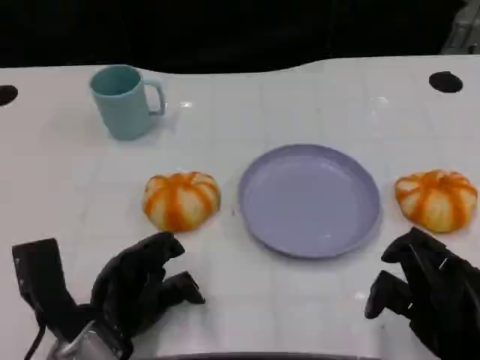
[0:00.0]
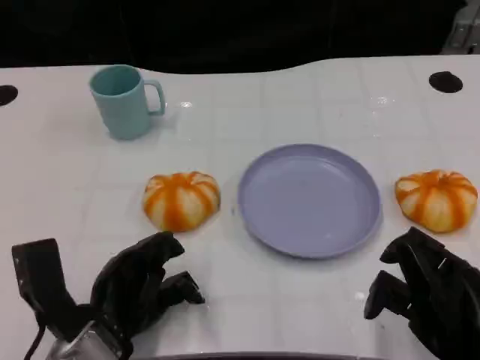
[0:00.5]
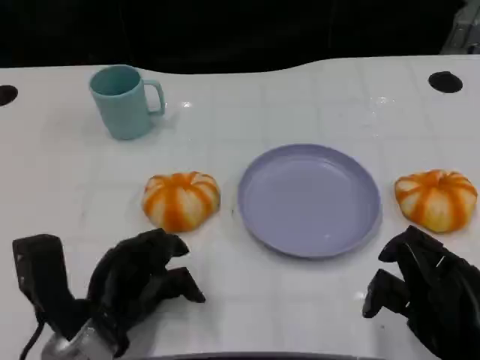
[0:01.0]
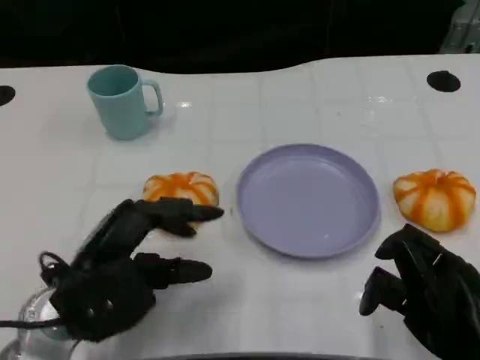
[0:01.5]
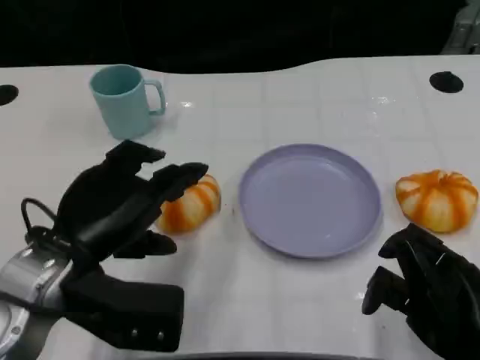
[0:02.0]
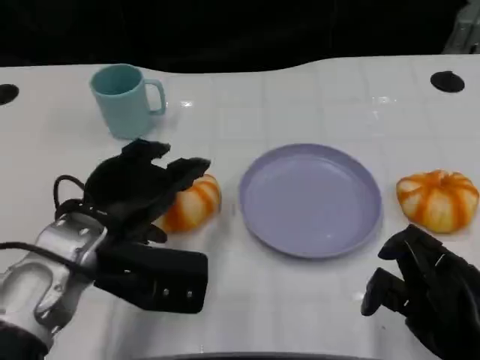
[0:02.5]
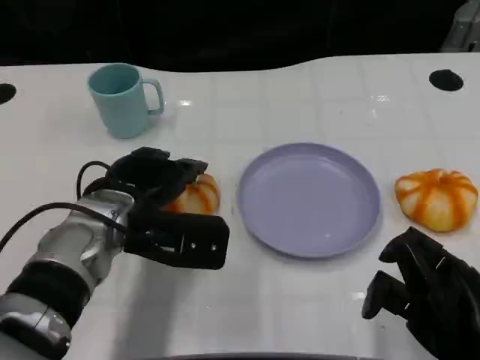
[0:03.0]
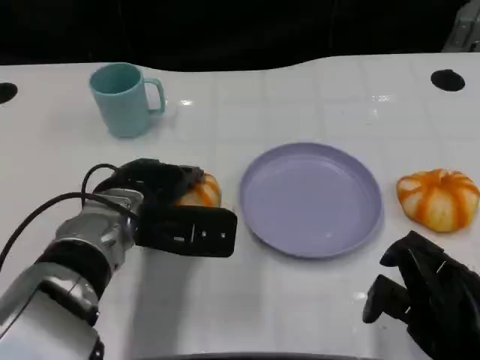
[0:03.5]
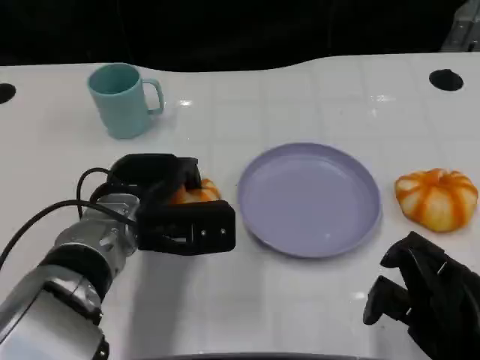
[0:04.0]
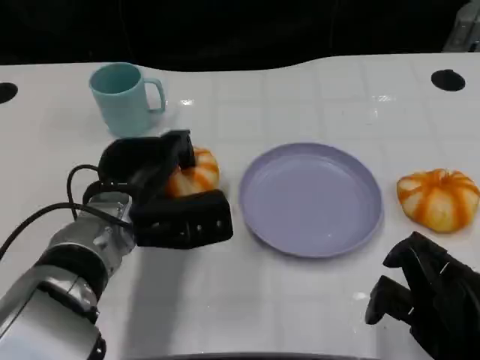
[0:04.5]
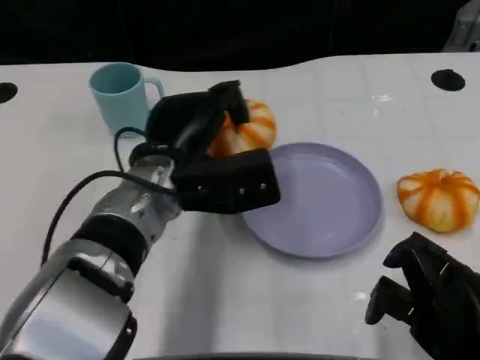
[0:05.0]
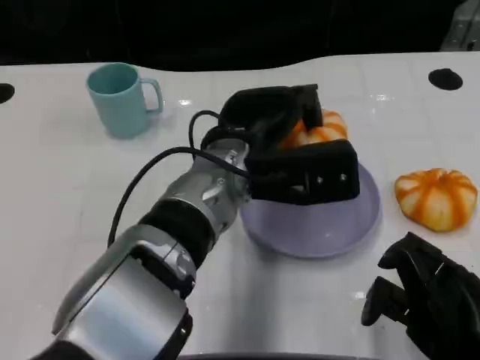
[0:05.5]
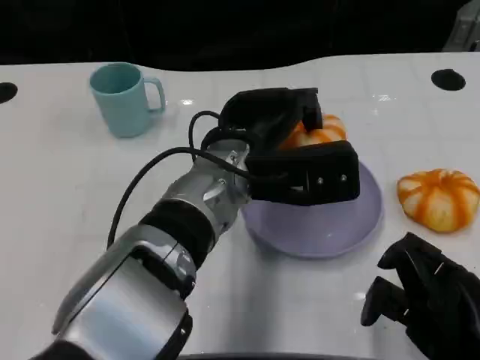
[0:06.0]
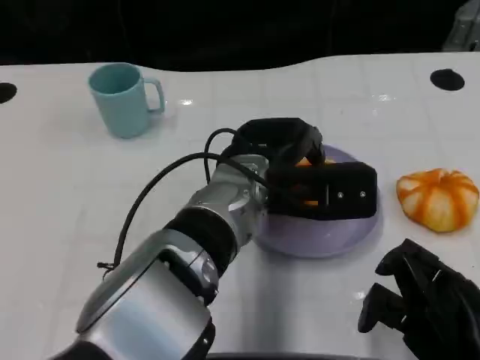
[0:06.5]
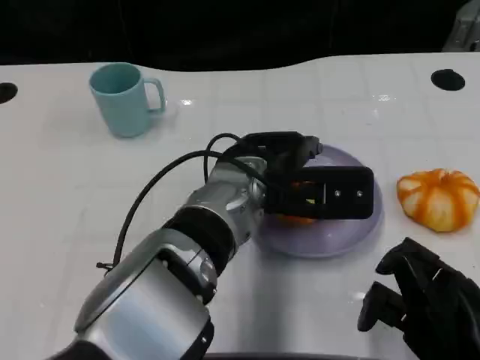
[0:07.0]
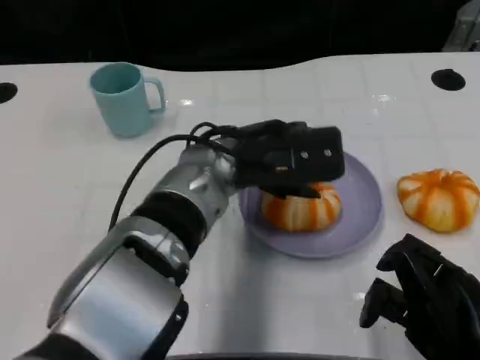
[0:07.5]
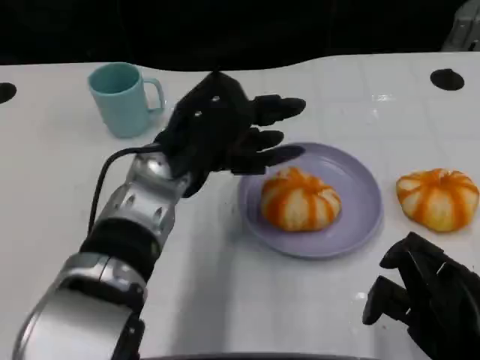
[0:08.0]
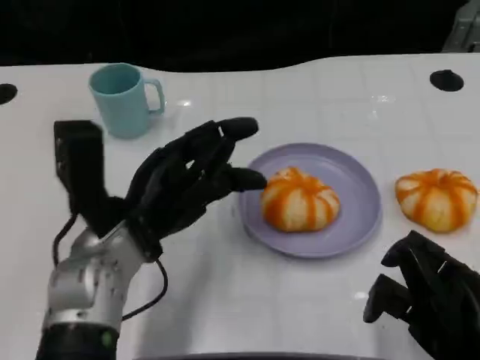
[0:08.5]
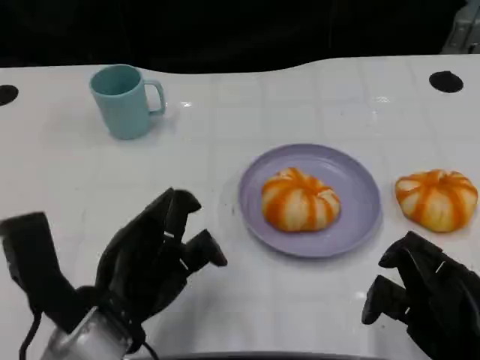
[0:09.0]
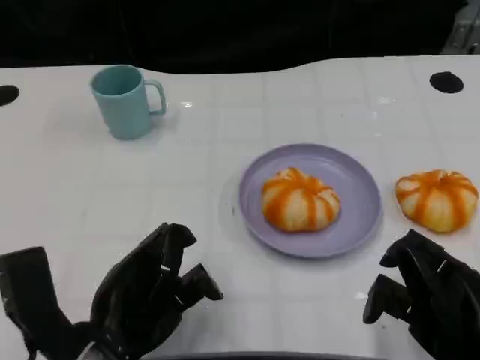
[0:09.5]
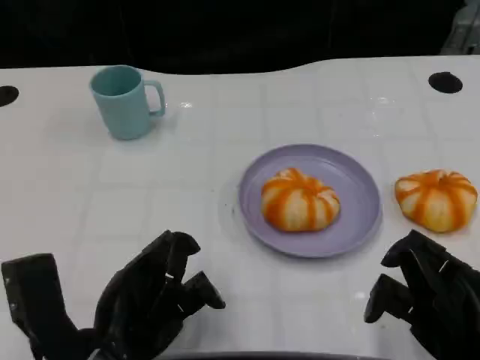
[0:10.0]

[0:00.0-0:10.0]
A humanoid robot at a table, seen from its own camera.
Task of the whole recording: Grasp the bread from the table and place it into the plate.
0.0 to 2.0 s: The left hand travels upward by some 10 cm.
2.0 to 4.0 s: The left hand moves forward and to the right, about 10 cm.
4.0 to 6.0 s: The left hand goes about 15 cm to the right and upward.
6.0 to 8.0 s: The left hand shifts roughly 5 cm to the left.
8.0 to 10.0 s: The left hand heads backward and to the left, covering about 15 cm.

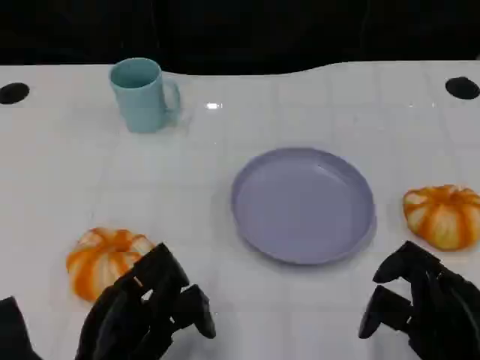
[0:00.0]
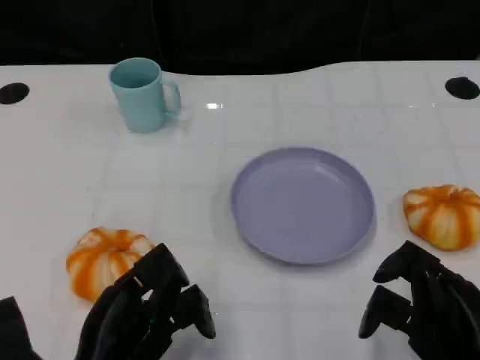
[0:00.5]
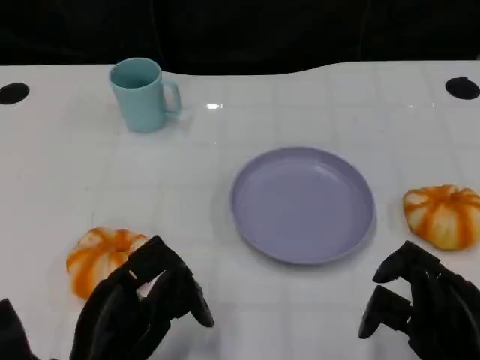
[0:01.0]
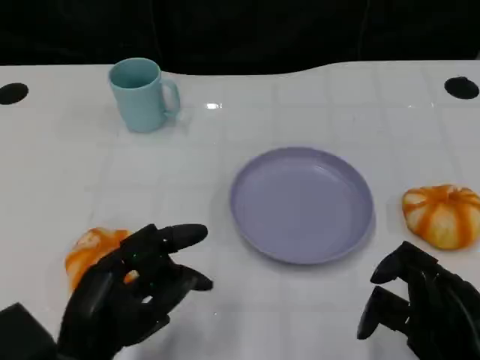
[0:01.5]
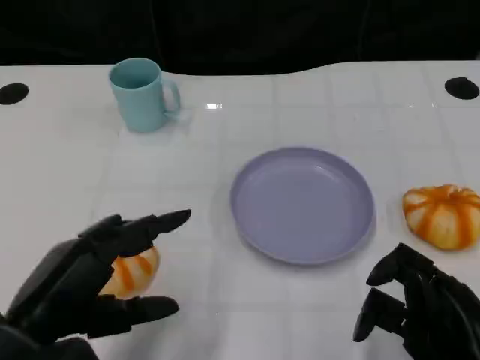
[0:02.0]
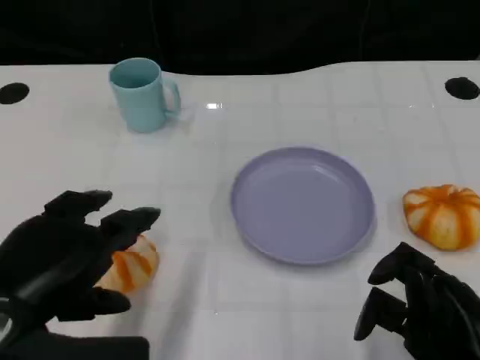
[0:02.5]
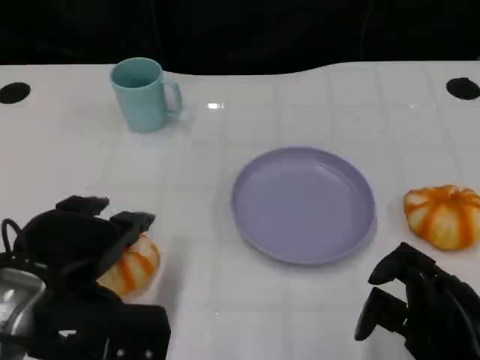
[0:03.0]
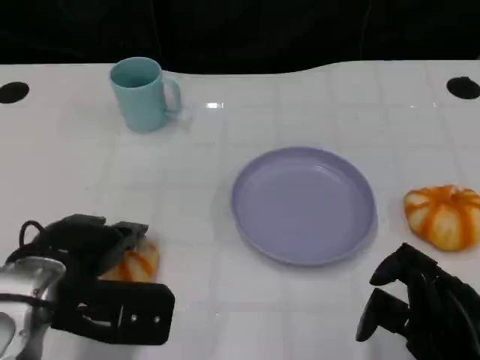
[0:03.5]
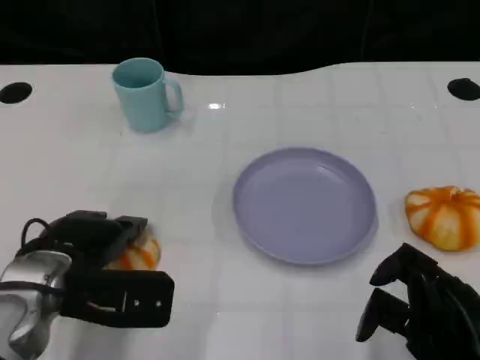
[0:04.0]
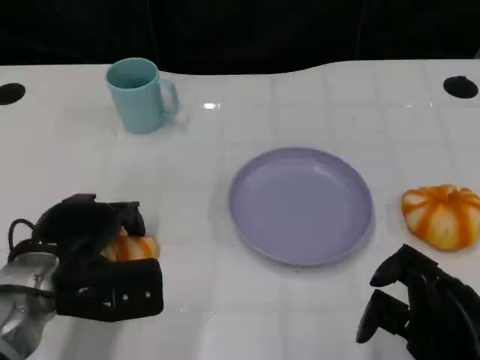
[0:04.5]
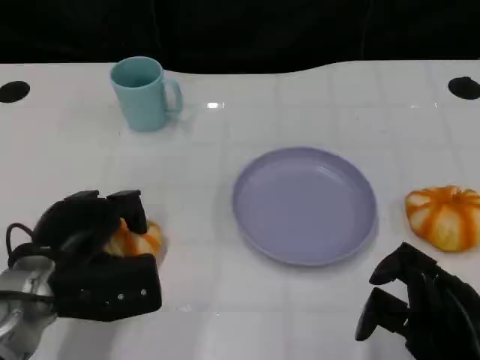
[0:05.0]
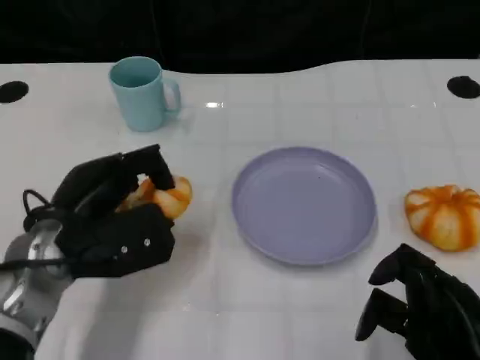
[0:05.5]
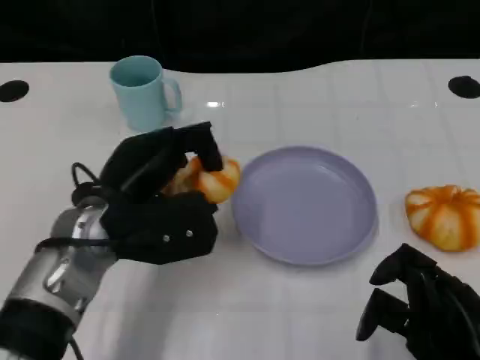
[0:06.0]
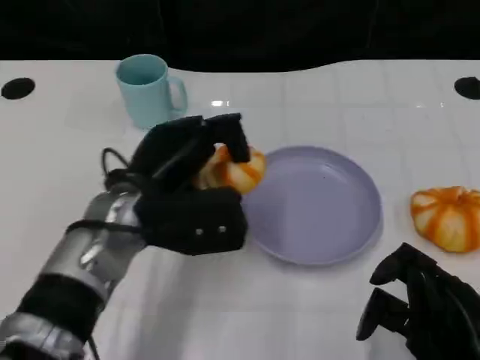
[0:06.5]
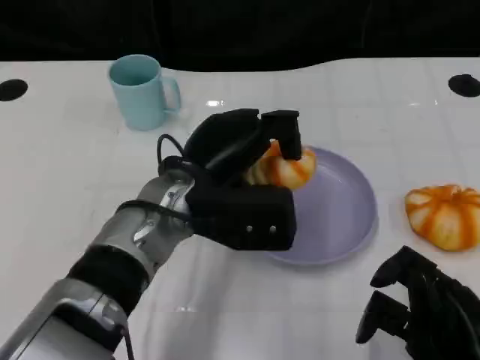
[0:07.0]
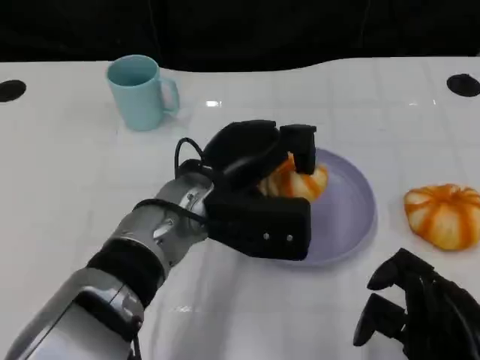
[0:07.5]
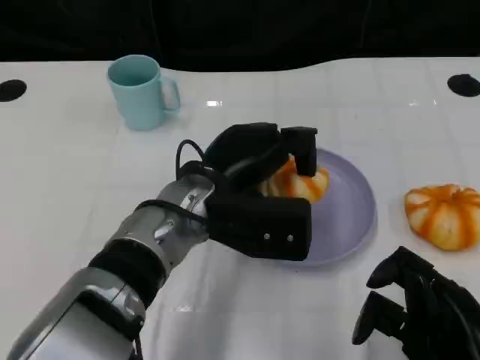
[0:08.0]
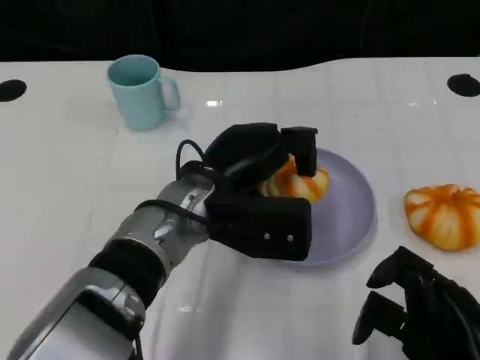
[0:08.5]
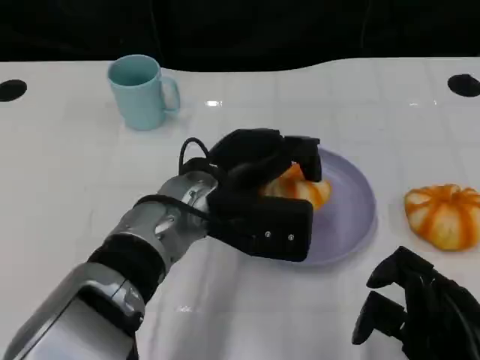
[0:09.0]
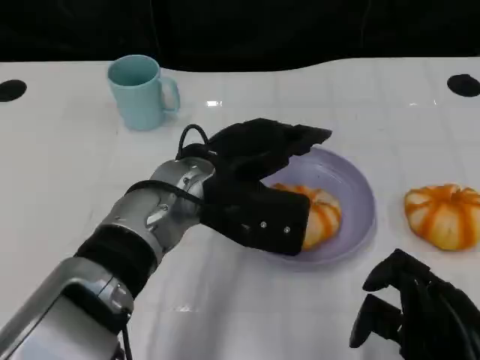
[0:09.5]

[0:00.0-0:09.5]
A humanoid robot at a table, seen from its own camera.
Task of the whole recording: Grasp the bread from the table and place it into the plate.
0.0 to 2.0 s: The left hand moves upward, about 10 cm.
2.0 to 4.0 s: The left hand goes some 10 cm forward.
5.5 to 7.5 s: The left hand shifts about 15 cm to the right.
7.5 to 9.5 s: The hands move only a little.

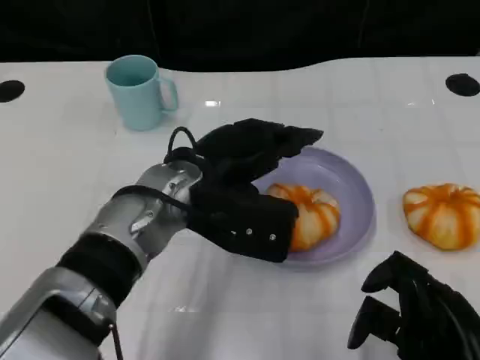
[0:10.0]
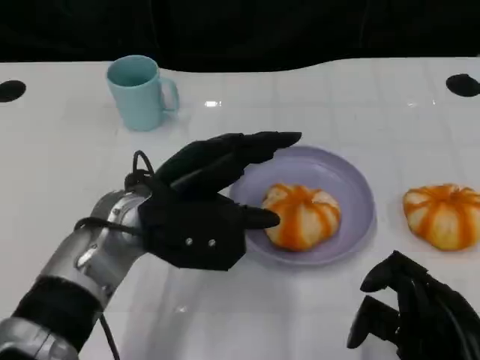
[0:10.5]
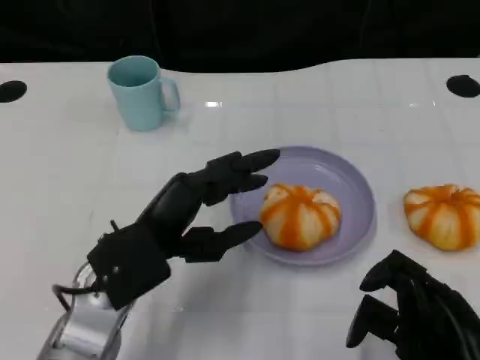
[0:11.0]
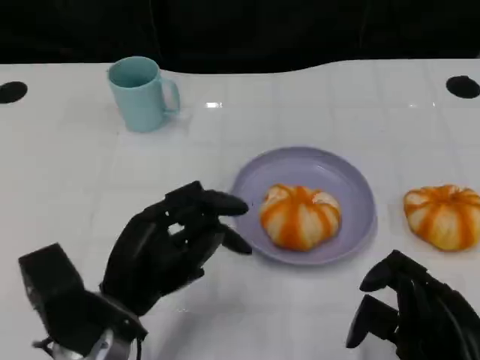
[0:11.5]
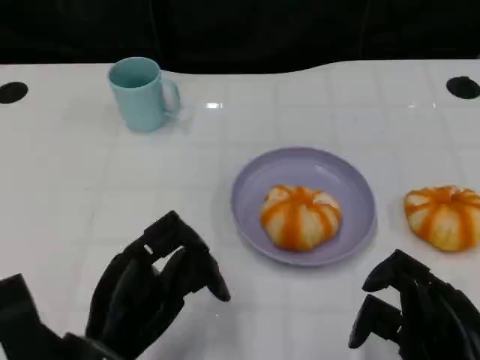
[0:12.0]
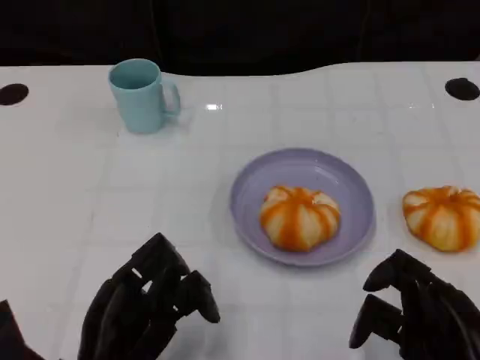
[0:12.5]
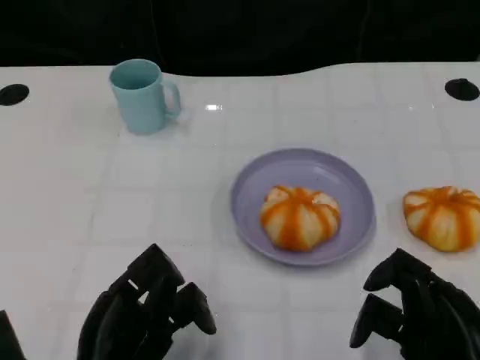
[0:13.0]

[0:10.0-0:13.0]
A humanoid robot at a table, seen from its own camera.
Task of the whole recording: Grasp the bread from the table and place it into the plate.
10.0 to 11.5 s: The left hand moves backward, to the left and downward, about 15 cm.
11.5 to 13.0 s: The left hand moves backward, roughly 5 cm.

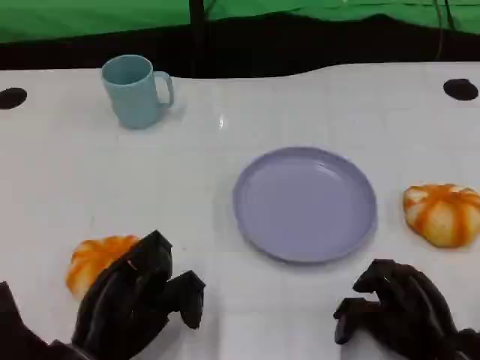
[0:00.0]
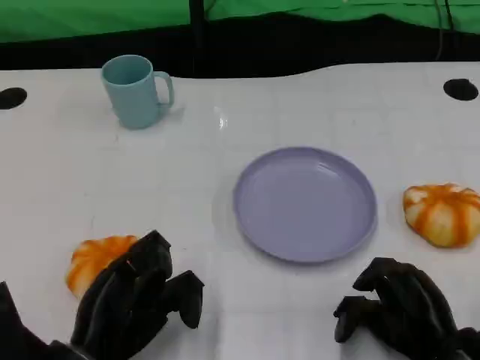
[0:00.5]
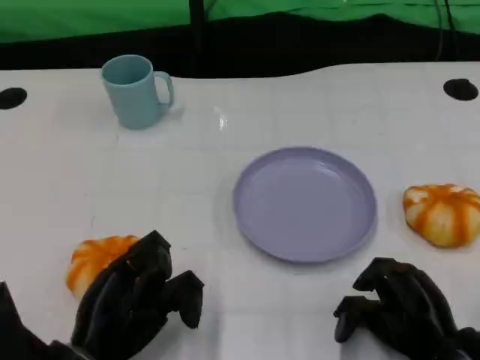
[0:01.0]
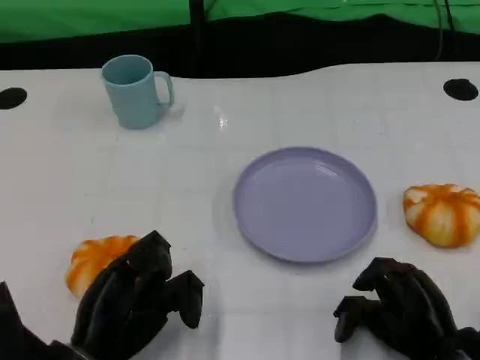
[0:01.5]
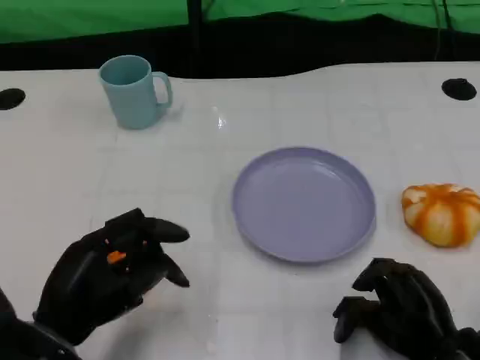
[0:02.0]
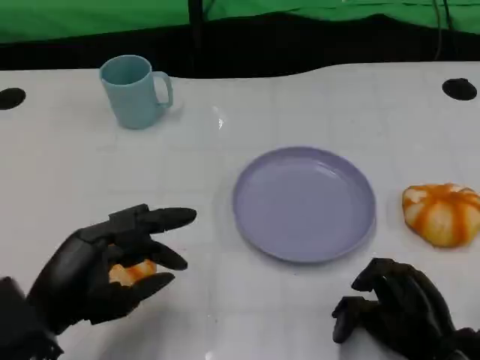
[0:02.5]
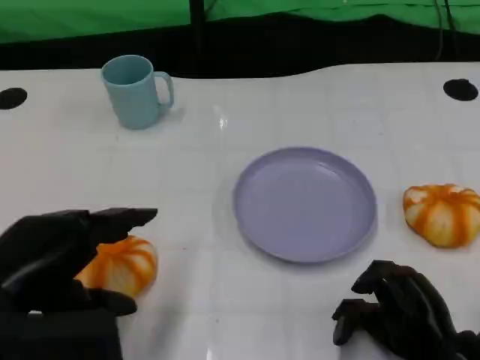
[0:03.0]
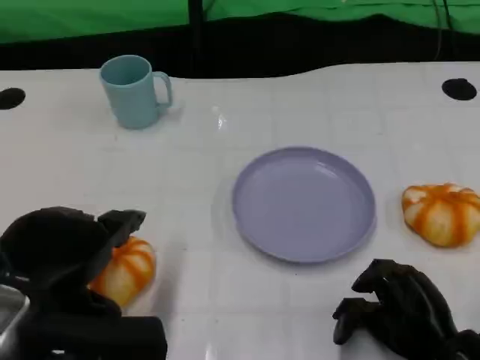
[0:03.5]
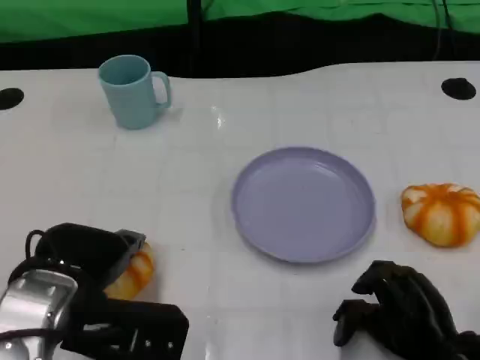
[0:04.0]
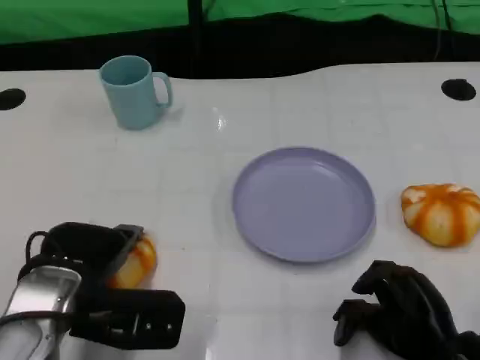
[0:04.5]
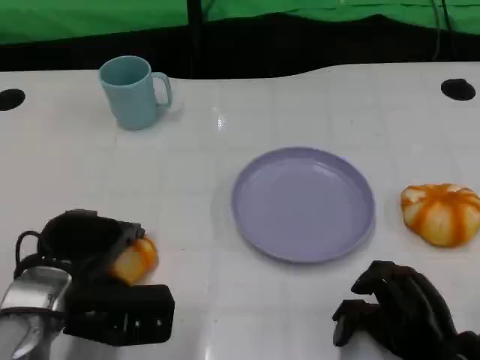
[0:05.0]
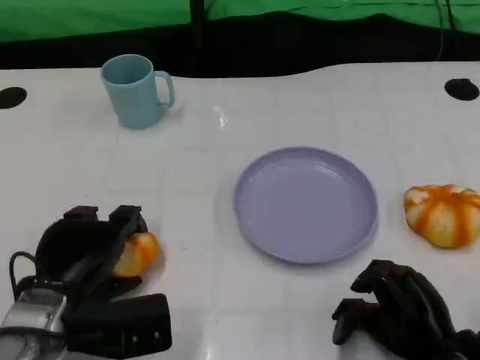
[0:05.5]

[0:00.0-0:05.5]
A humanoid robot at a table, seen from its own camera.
Task of the whole recording: Grasp the bread from the table and place it into the plate.
2.0 to 3.5 s: The left hand travels upward by some 10 cm.
3.5 to 5.5 s: The left hand shifts roughly 15 cm downward and forward.
